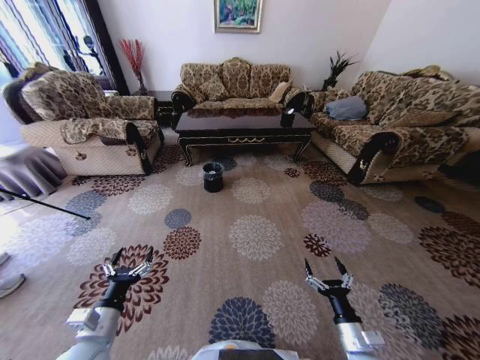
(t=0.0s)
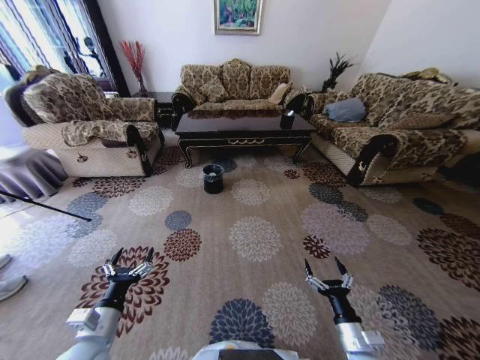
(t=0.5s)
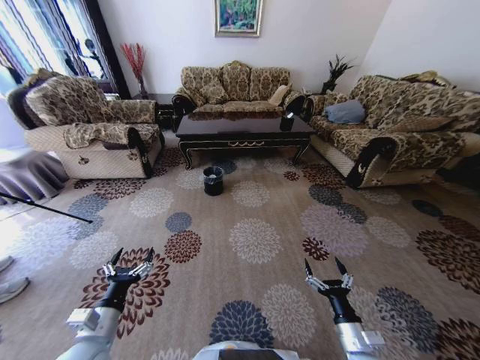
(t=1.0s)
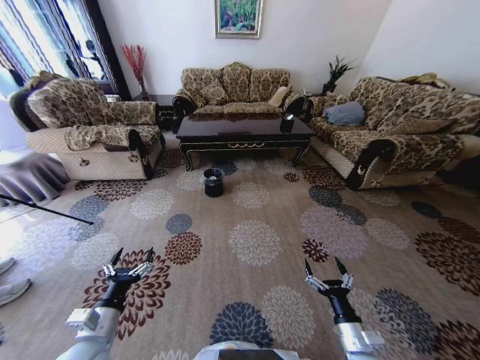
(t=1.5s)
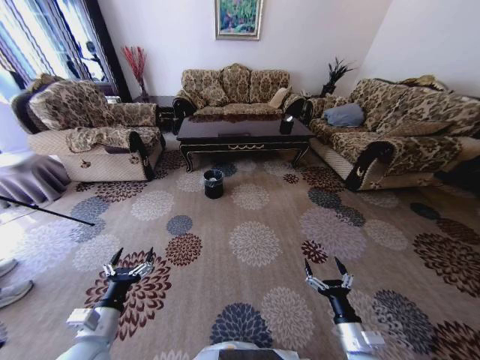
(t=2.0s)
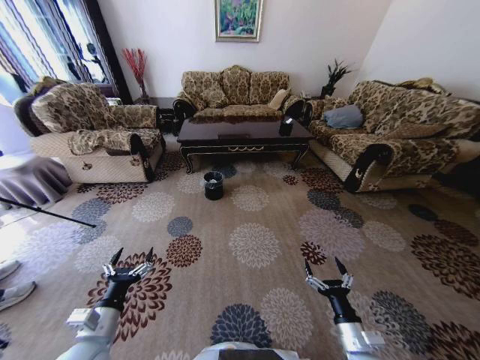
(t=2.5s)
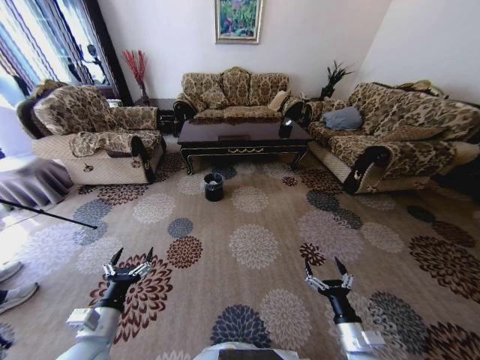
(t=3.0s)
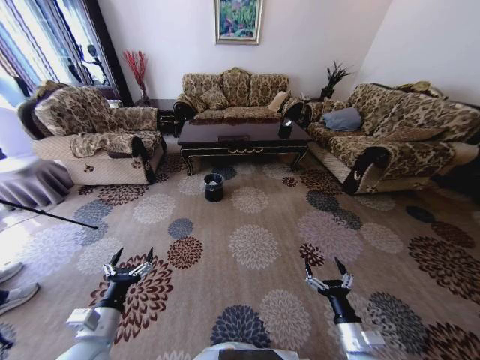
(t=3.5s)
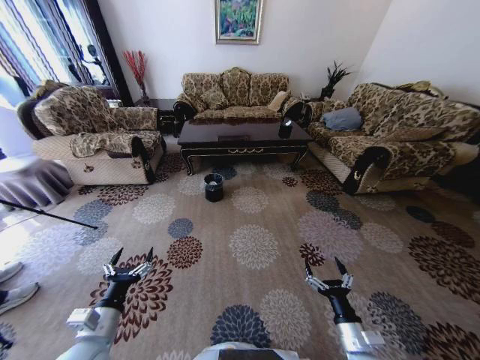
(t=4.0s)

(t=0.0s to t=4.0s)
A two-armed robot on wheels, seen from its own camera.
Task of the whole recording: Move to the front of the table and pick up the trash from the floor, then place it into the trash bin.
t=2.0s - t=4.0s: Both grippers stay put.

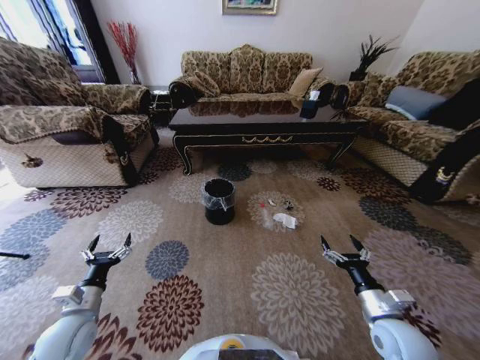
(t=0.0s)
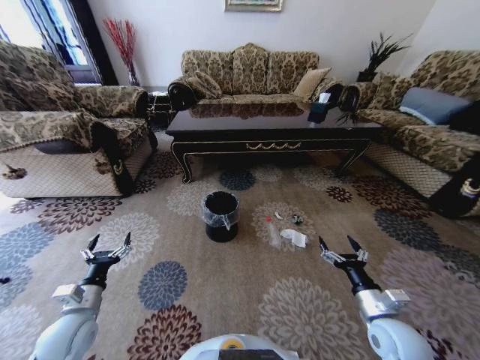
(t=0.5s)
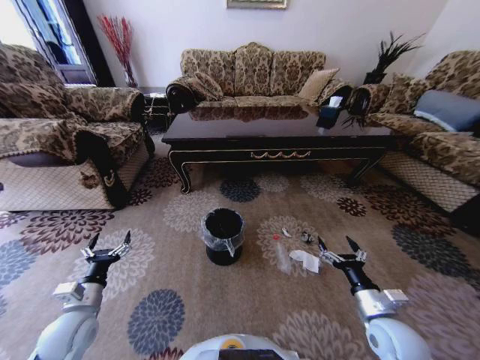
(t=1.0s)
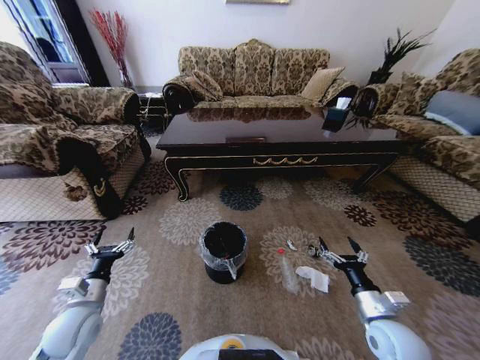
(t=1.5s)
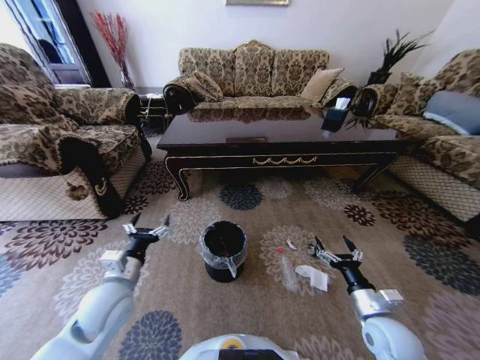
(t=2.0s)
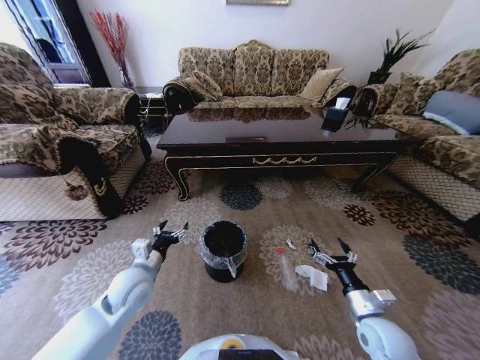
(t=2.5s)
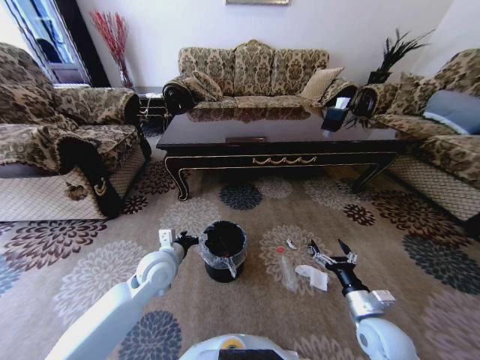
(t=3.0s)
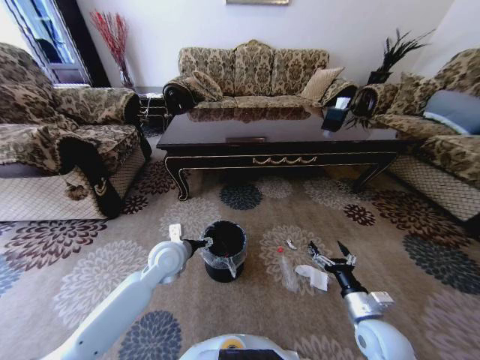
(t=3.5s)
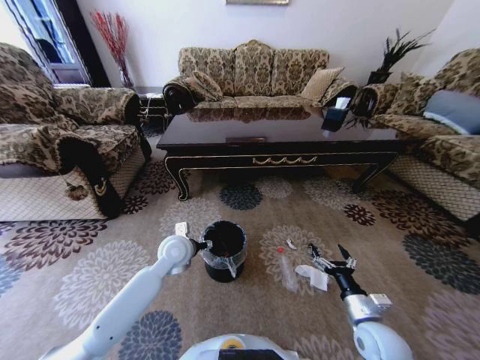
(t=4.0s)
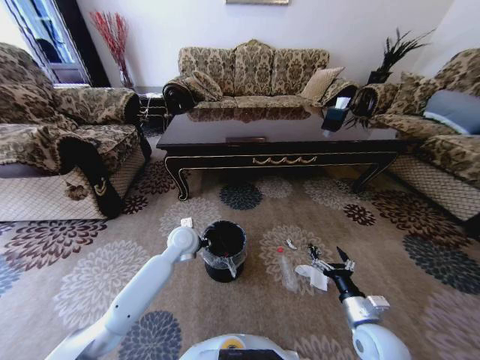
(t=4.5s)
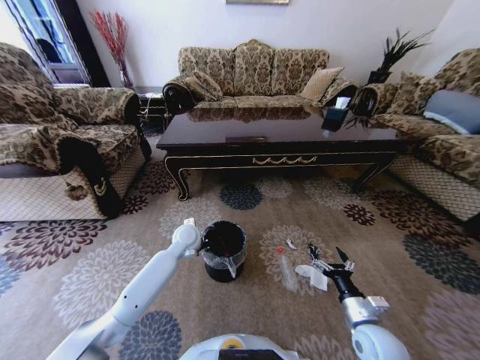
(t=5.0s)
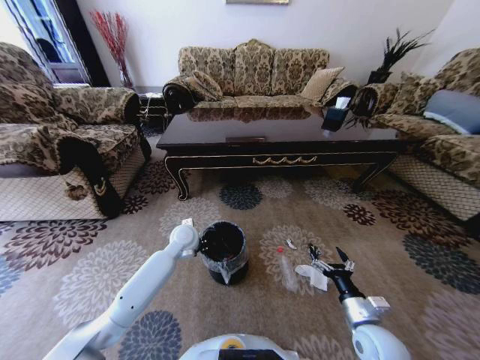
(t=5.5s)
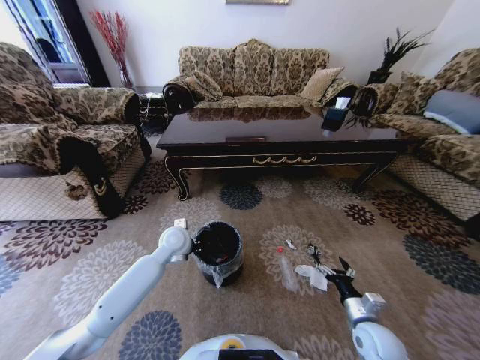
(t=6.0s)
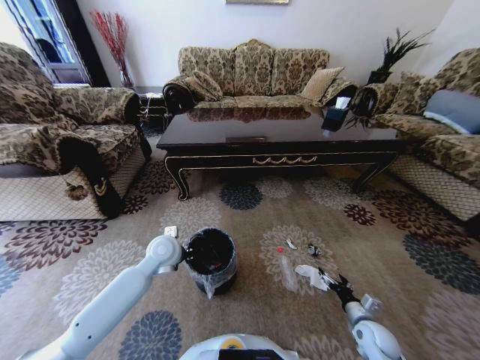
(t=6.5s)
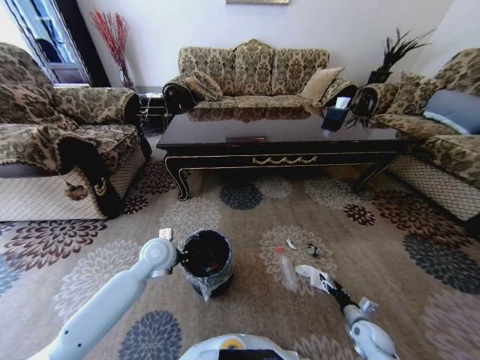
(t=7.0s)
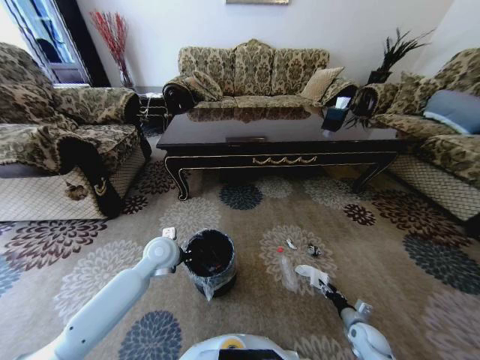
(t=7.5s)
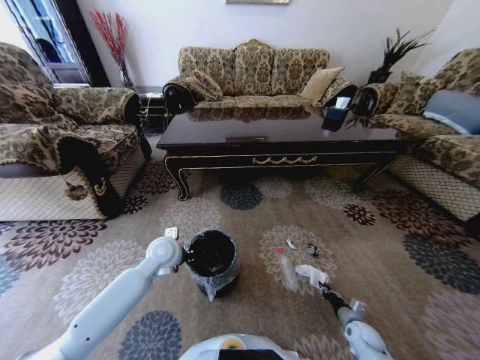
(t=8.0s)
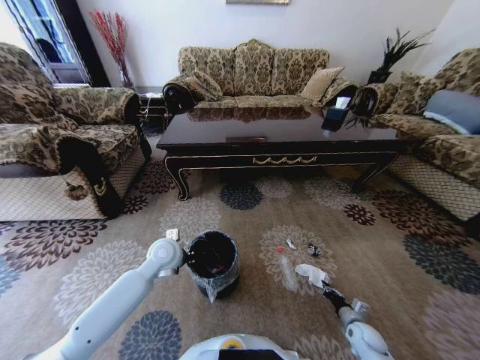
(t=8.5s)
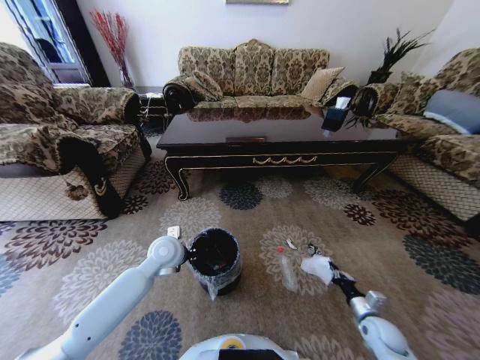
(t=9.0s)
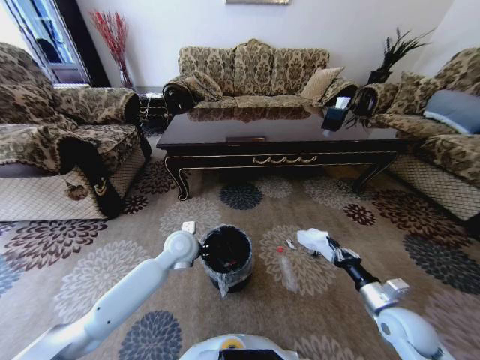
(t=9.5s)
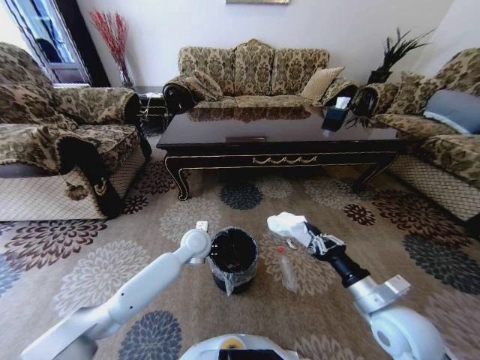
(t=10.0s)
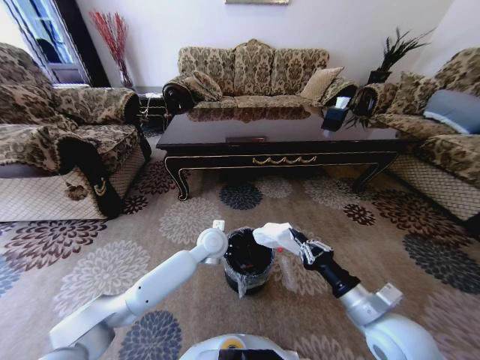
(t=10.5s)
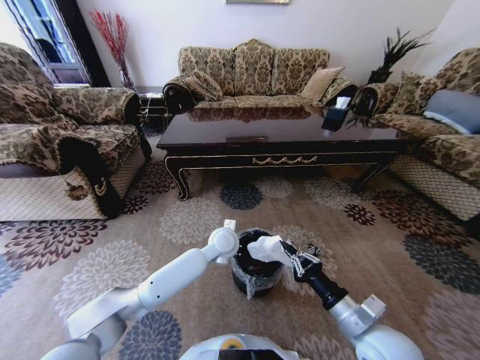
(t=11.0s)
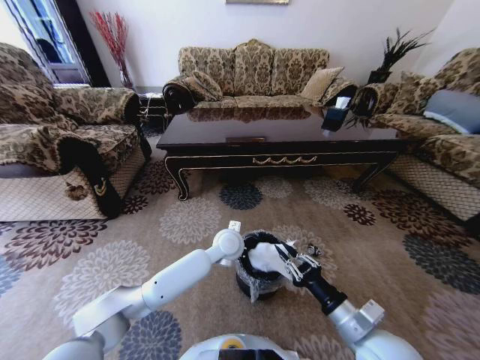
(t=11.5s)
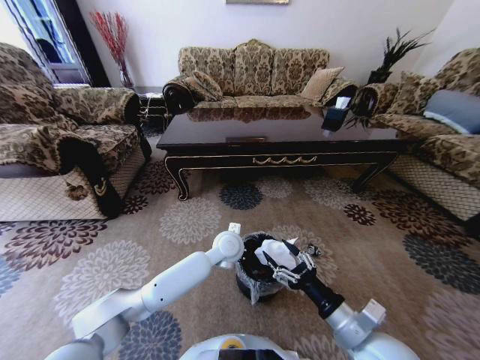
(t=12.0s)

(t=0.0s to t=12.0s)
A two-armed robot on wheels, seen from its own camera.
Task of the whole recording: Move to the front of the table and pick up the trash from the floor, then place it into the trash bin.
t=0.0s - t=2.0s: The left gripper travels to the right and upward by some 15 cm.
t=2.0s - t=4.0s: The left gripper shifts about 20 cm forward and to the right.
t=4.0s - t=6.0s: The left gripper closes its fingers.
t=6.0s - t=8.0s: The right gripper travels downward and to the right by roughly 20 cm, and closes its fingers.
t=8.0s - t=10.0s: The left gripper travels to the right by approximately 10 cm. Meanwhile the right gripper travels upward by some 30 cm.
t=10.0s - t=12.0s: The left gripper goes approximately 10 cm to the right; the right gripper goes approximately 5 cm to the left, and opens its fingers.

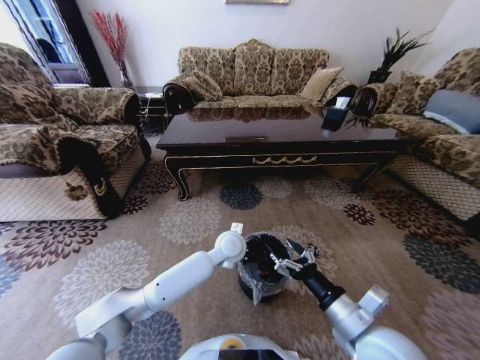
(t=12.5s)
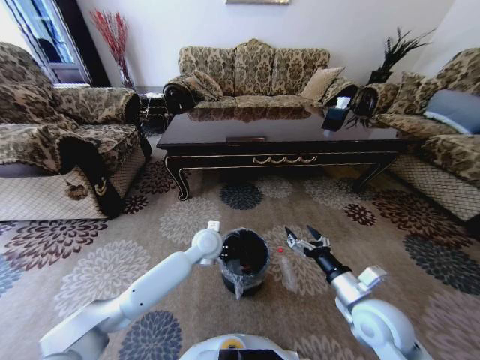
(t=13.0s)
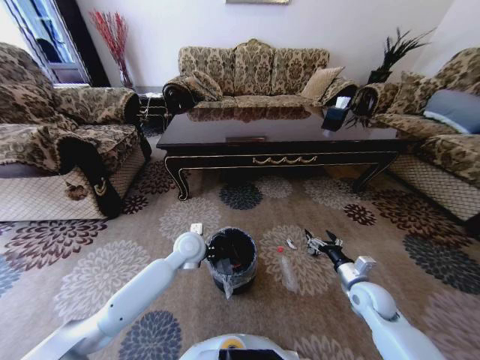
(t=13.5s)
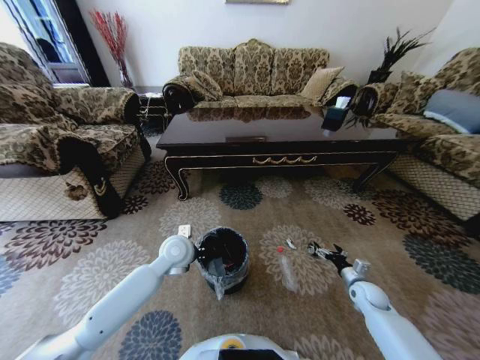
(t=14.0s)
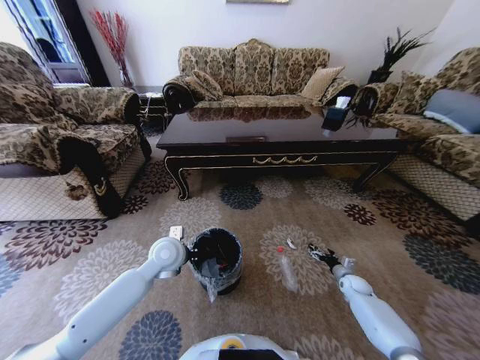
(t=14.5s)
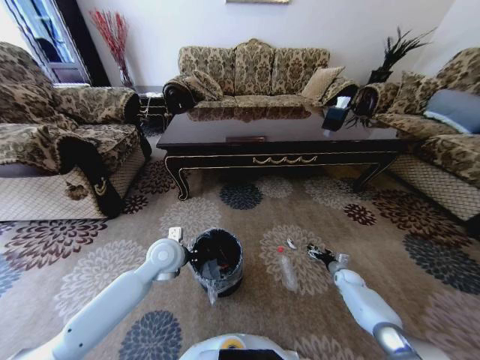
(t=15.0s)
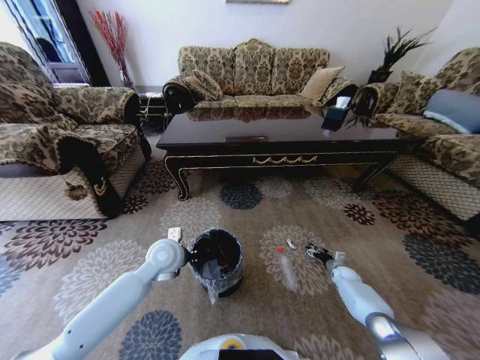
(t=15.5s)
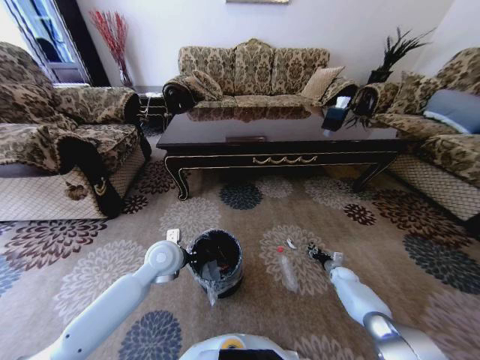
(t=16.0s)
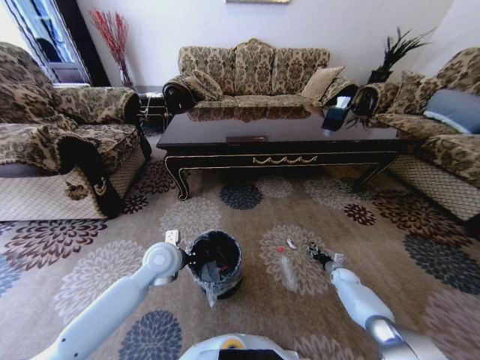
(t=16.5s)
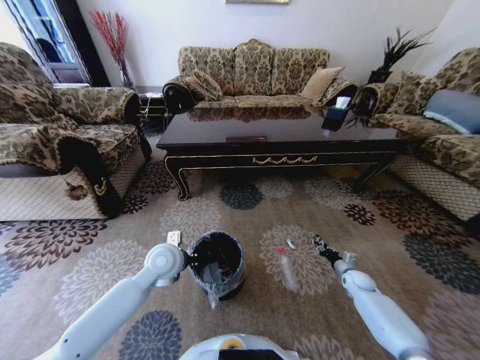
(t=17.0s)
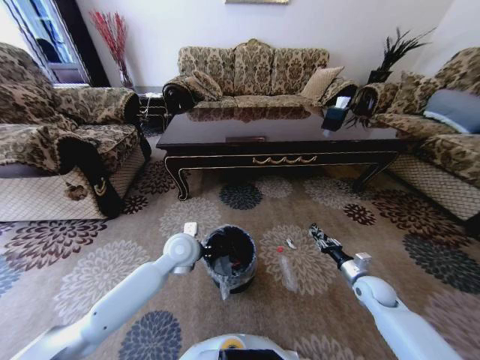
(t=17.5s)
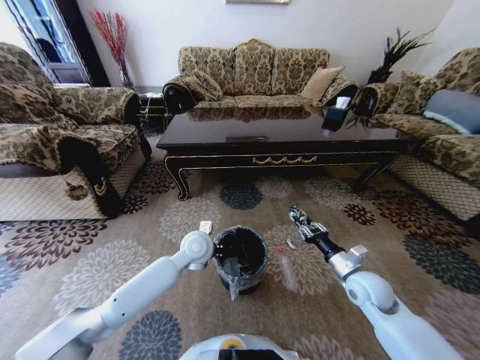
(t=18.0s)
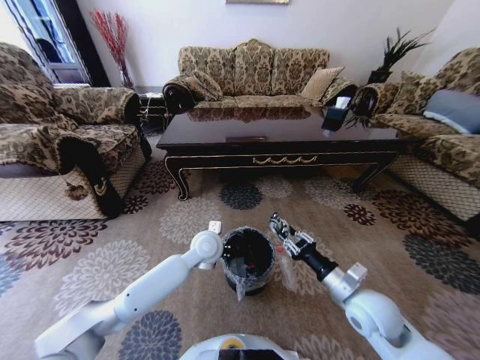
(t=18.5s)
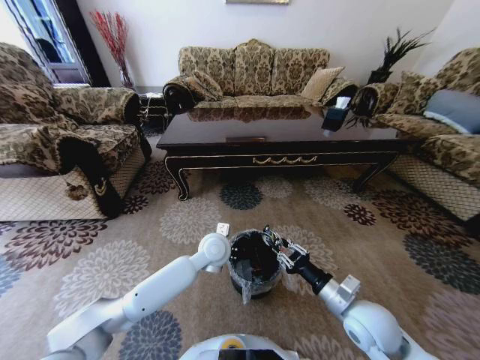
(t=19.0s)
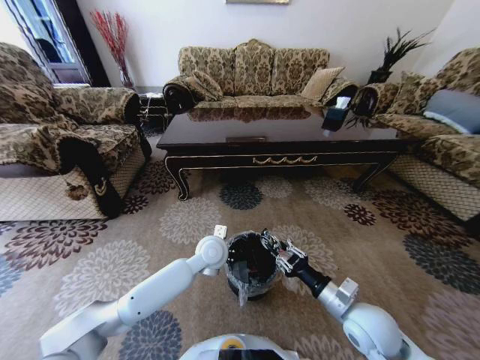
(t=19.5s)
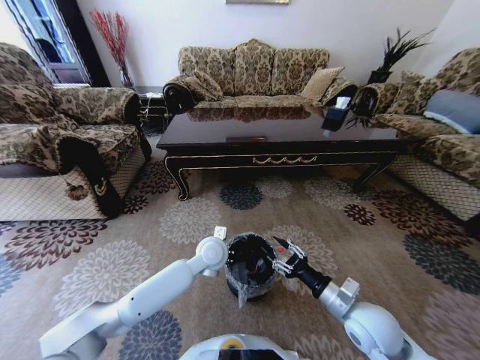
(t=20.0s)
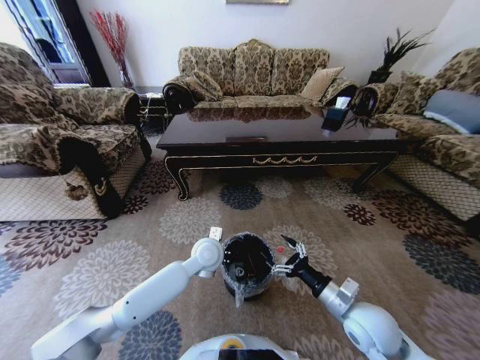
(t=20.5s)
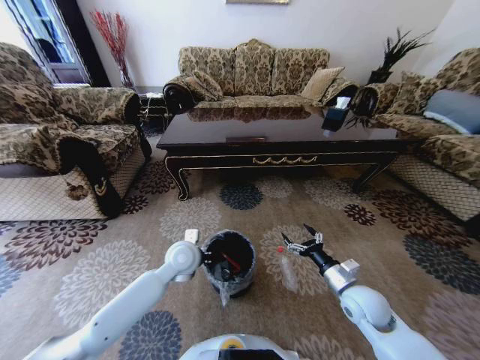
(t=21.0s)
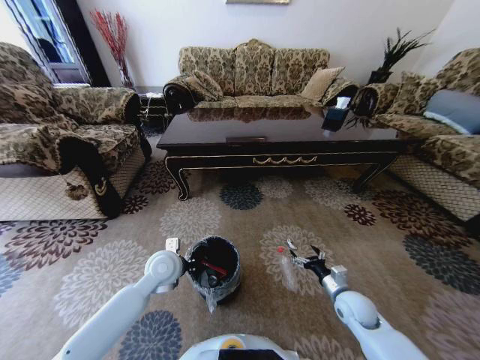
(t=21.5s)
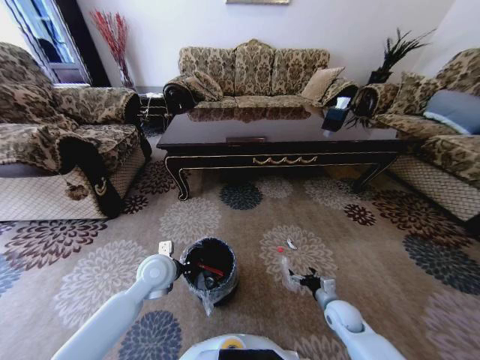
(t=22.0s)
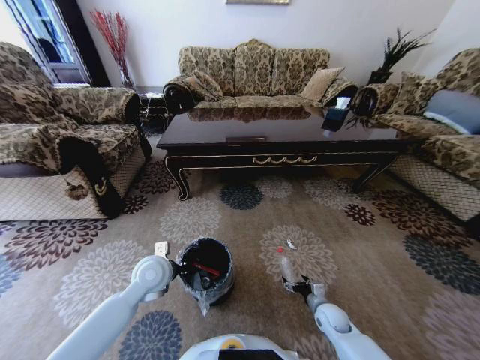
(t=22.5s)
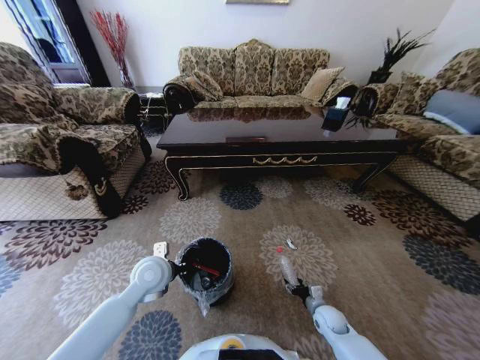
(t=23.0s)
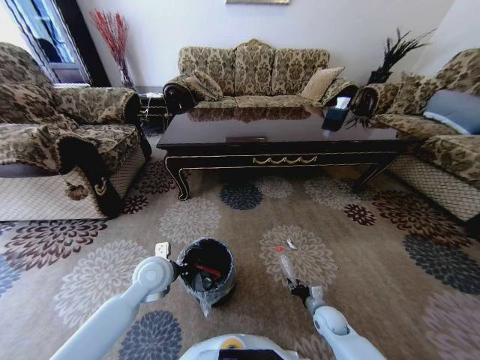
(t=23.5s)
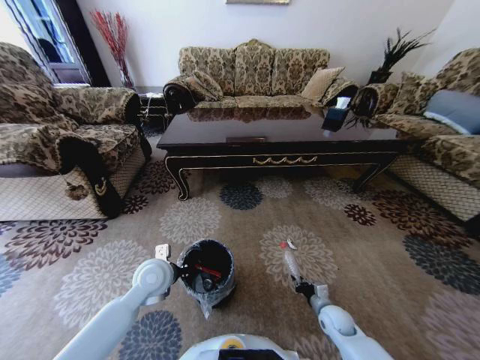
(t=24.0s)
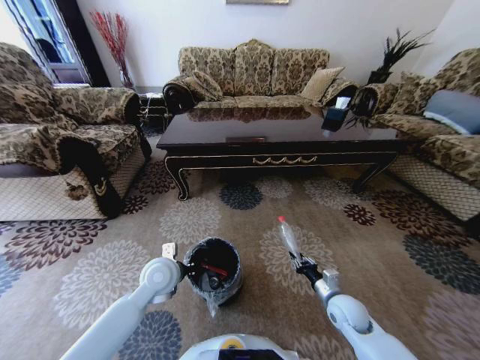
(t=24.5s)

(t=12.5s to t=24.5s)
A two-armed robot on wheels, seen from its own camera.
Task of the whole recording: Move to the front of the table and pick up the trash from the floor, then place it into the trash bin.
t=12.5s - t=14.5s: The right gripper moves downward, to the right and forward, approximately 40 cm. Meanwhile the left gripper shifts roughly 20 cm to the left.
t=14.5s - t=16.5s: The right gripper ends up some 5 cm from where it was, and closes.
t=16.5s - t=18.5s: The left gripper is displaced to the right by approximately 10 cm, while the right gripper shifts roughly 40 cm upward, to the left and backward.
t=18.5s - t=20.5s: The right gripper opens up.
t=20.5s - t=22.5s: The left gripper heads to the left, covering roughly 15 cm. Meanwhile the right gripper heads downward, covering some 20 cm.
t=22.5s - t=24.5s: The right gripper shifts some 10 cm upward, and closes.
